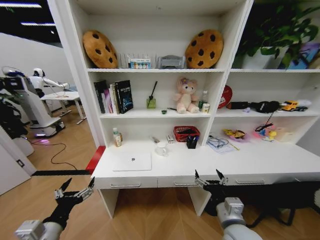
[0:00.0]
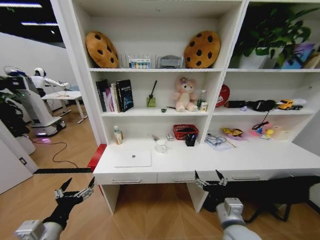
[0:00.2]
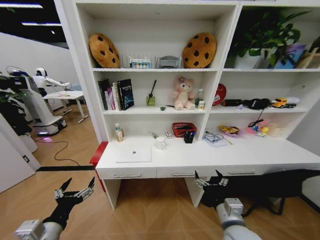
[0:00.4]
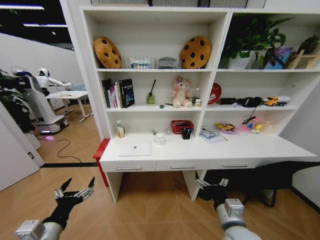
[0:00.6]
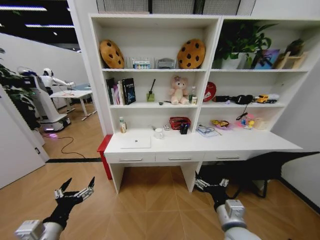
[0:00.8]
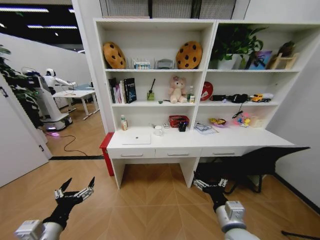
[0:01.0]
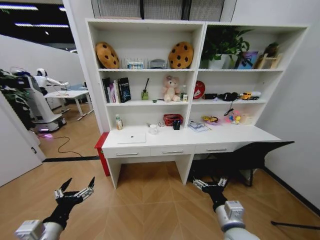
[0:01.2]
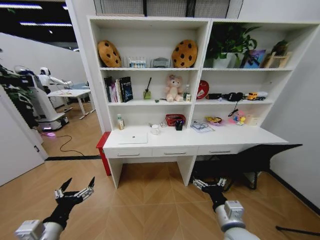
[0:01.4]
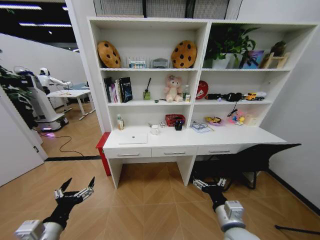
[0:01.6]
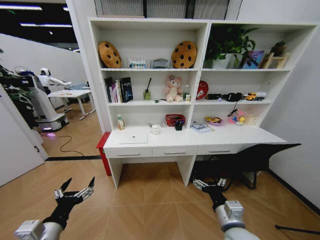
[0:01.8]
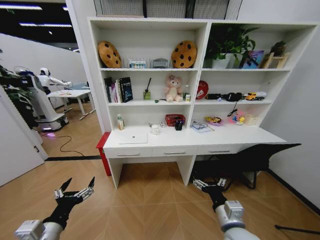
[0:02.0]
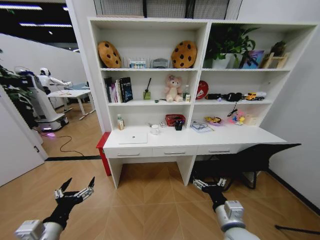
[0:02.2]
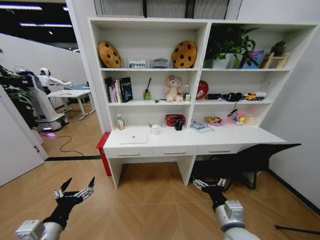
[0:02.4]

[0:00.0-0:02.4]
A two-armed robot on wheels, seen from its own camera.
Task of the whole recording: Organize the objects on the table.
0:01.2 to 0:02.4: The two grippers keep their place.
